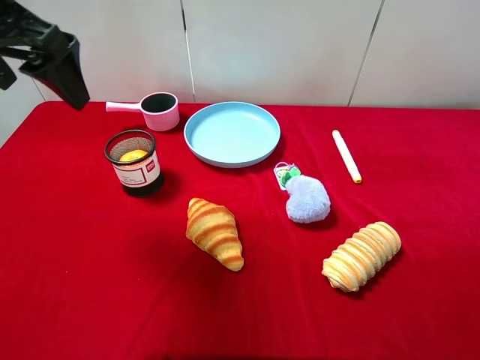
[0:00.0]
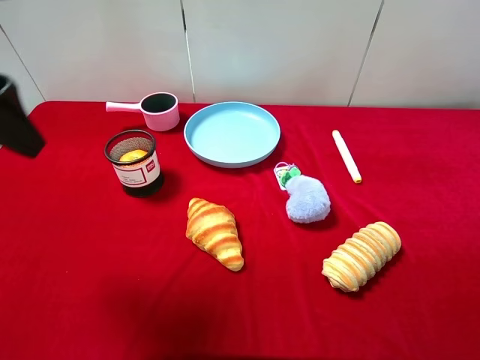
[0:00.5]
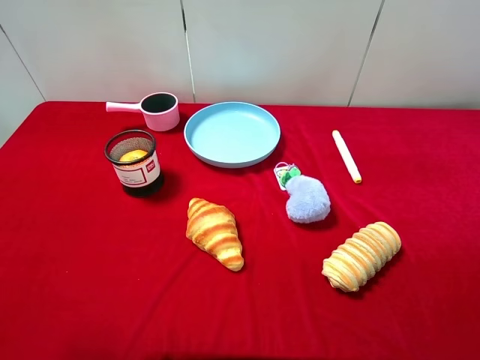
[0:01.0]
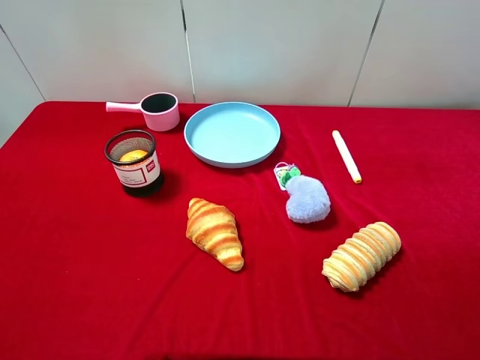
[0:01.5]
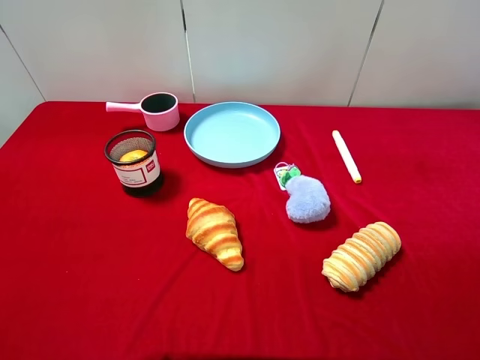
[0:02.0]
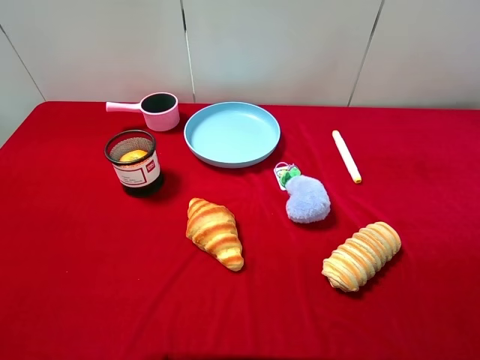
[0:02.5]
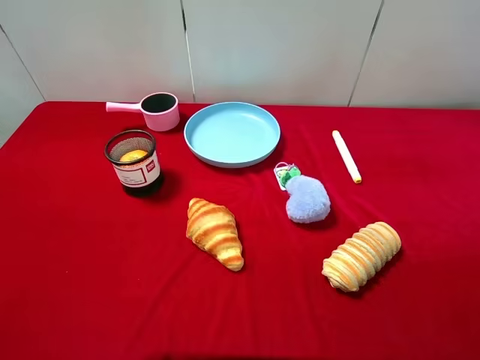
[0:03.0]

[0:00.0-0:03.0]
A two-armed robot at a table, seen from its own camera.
Task of the whole recording: pick up an item with a gripper and place it in a random container on the desktop.
0:00.0 to 0:01.5: The left gripper is displaced backward by roughly 25 cm.
